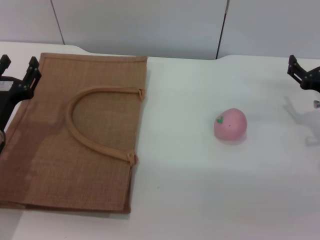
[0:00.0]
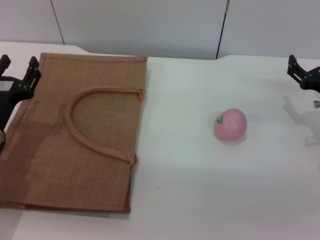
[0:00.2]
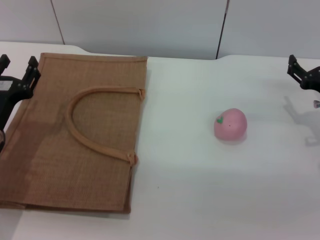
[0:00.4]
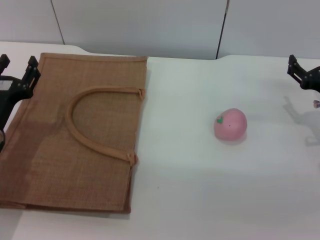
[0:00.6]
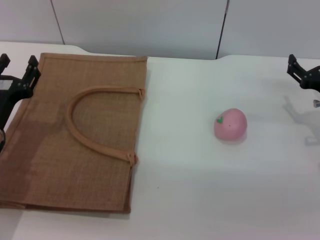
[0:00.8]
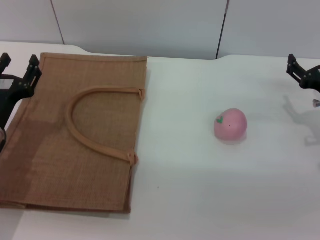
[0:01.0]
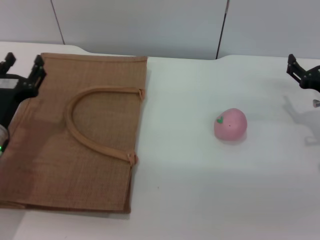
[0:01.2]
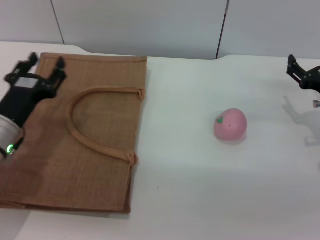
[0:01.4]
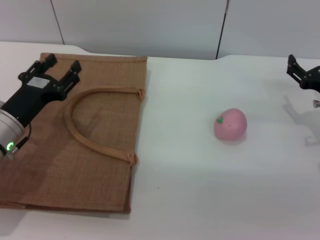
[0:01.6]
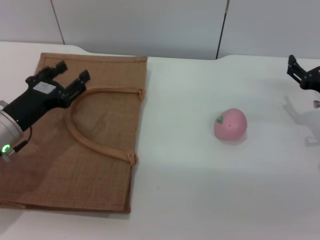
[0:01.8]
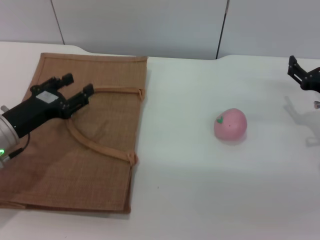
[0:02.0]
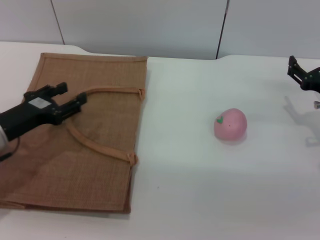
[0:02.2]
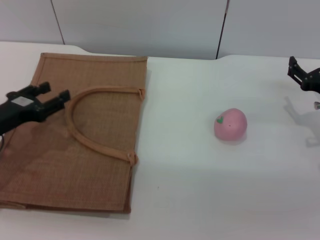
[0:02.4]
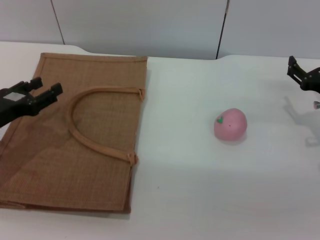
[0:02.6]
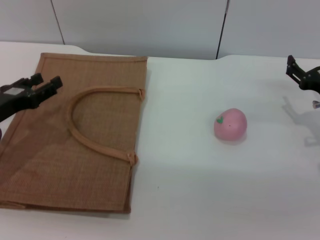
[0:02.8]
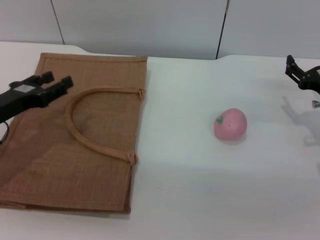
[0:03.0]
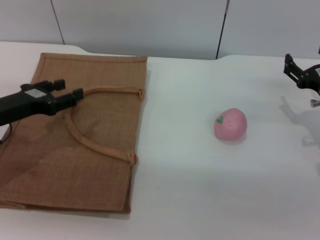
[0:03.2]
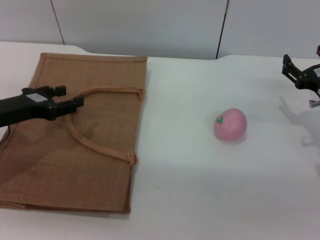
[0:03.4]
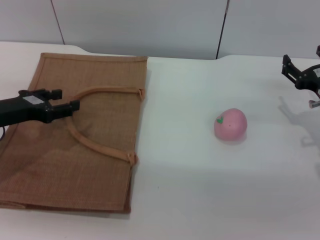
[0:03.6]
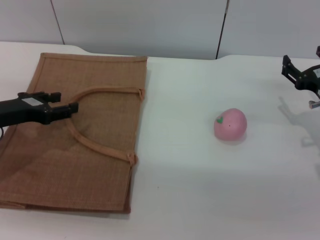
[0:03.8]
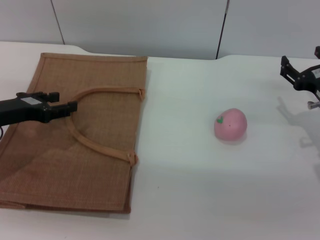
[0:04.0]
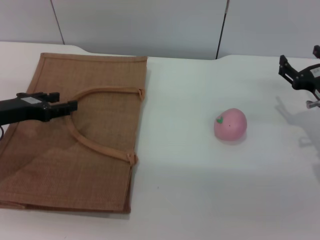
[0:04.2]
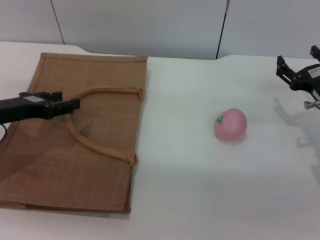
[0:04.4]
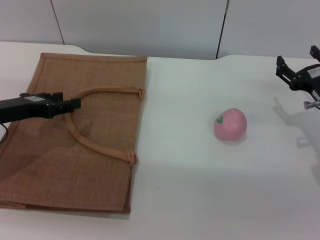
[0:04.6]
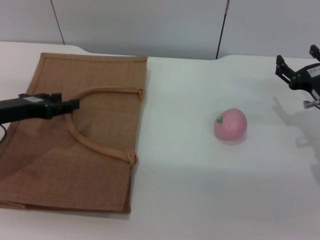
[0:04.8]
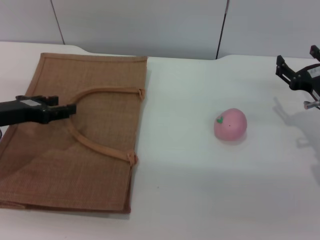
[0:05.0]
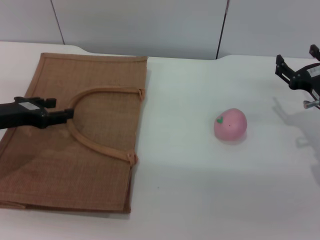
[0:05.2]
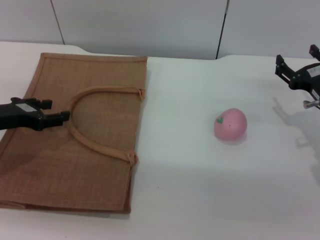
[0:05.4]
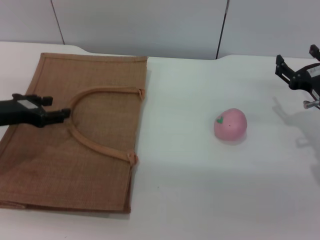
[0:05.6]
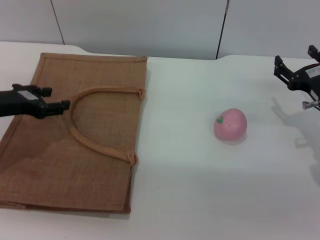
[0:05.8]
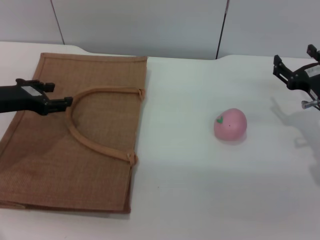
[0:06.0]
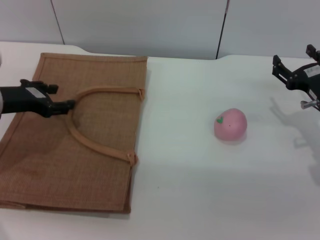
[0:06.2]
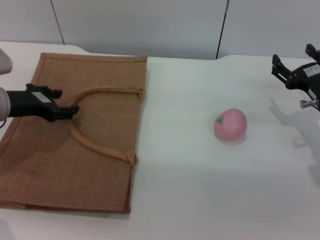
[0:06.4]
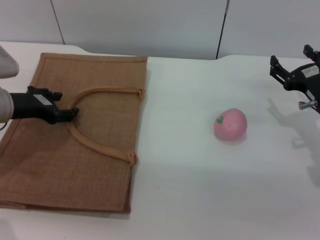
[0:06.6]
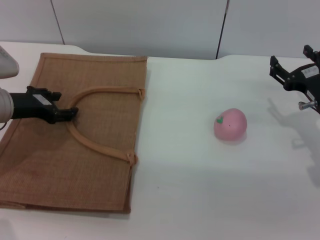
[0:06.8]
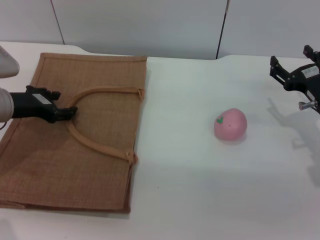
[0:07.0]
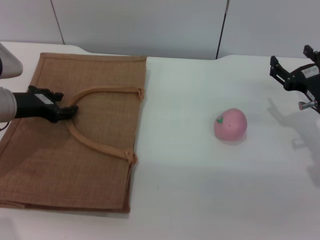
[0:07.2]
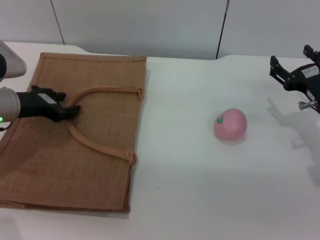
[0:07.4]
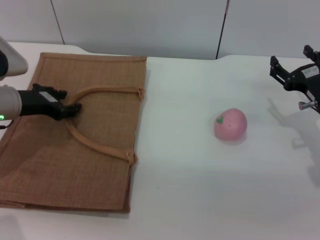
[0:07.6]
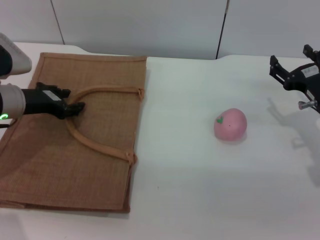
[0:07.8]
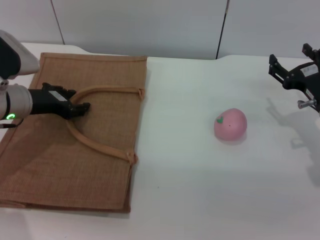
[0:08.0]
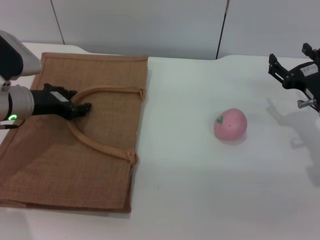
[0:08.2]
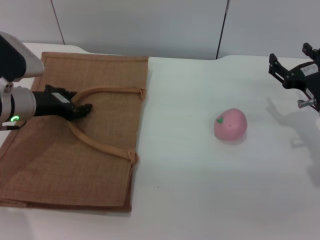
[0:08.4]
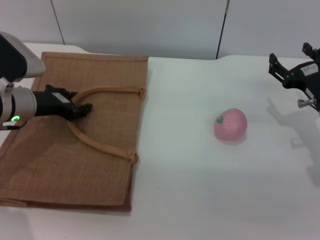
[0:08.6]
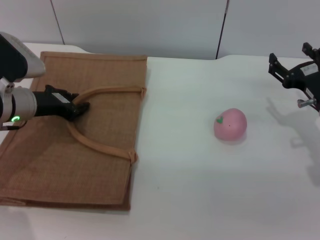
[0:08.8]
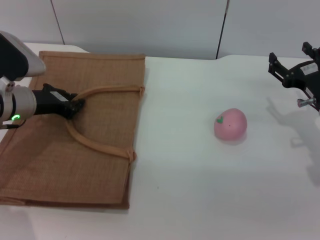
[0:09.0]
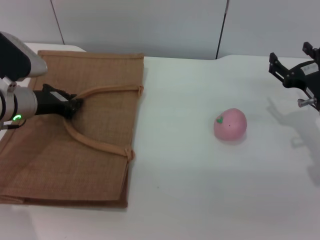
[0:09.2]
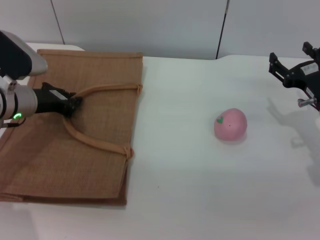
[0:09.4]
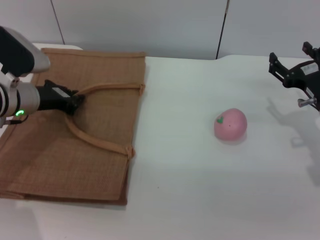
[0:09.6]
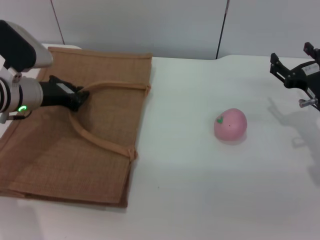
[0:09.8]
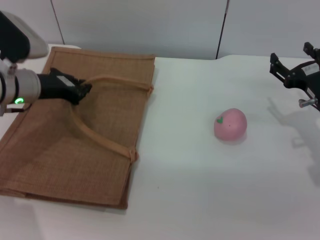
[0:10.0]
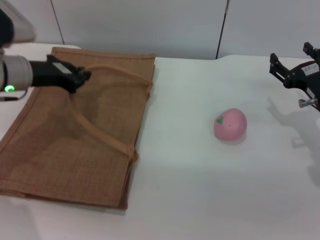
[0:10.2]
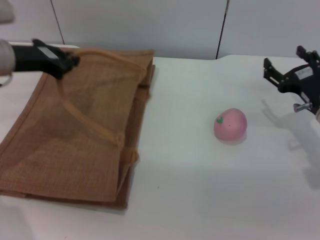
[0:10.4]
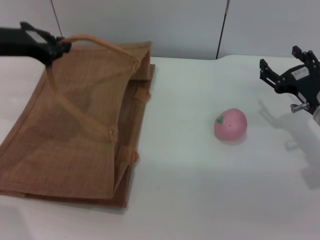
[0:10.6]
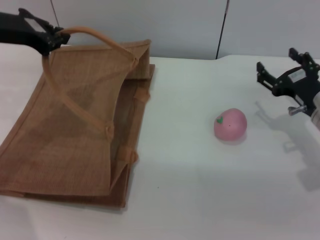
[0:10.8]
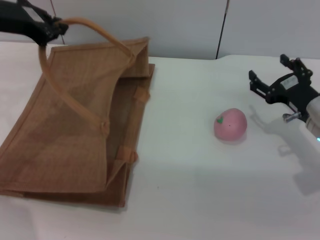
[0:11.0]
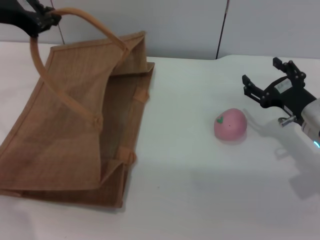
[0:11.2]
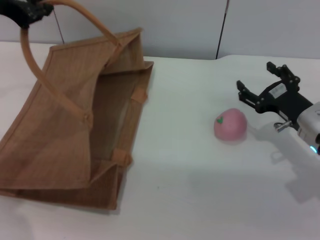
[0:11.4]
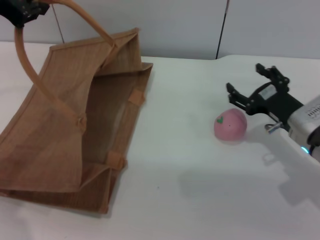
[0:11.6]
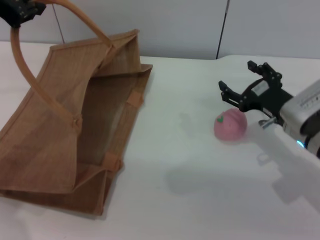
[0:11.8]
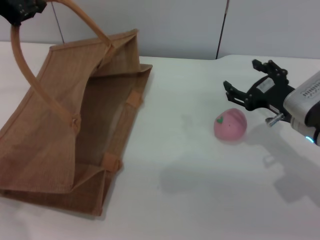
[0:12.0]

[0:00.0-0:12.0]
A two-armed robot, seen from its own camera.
Task of the whole recording: pick up the peach from the table and place it in the brown handbag.
Step, 0:00.0 to 0:10.2: Lift the woven bag with the left gripper to open it.
0:00.0 to 0:01.6: The grippers move only a little.
0:01.6 to 0:03.0: The left gripper shifts by about 5 cm.
0:03.0 to 0:04.4: The grippers stay close to where they were, moving slightly.
0:04.4 to 0:06.0: The grippers move only a little.
0:06.0 to 0:07.6: The grippers stay close to where they were, moving slightly.
0:07.6 to 0:09.0: The grippers make only small movements.
0:09.0 to 0:10.4: The left gripper is displaced upward by about 10 cm.
0:10.4 to 0:12.0: The left gripper is displaced upward by some 15 cm; the right gripper shifts by about 5 cm.

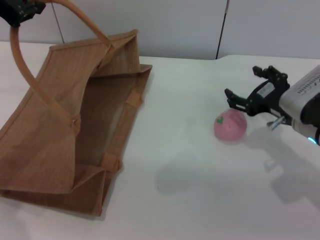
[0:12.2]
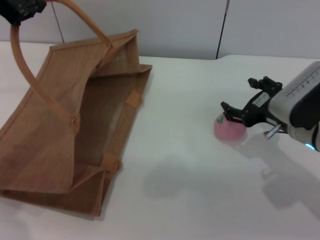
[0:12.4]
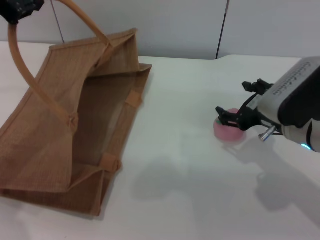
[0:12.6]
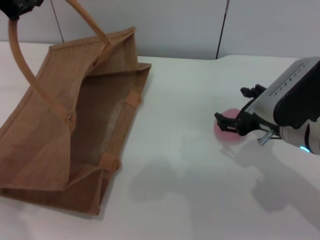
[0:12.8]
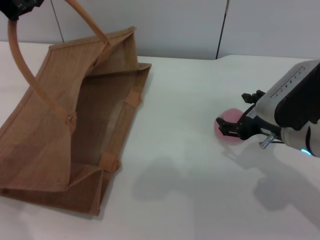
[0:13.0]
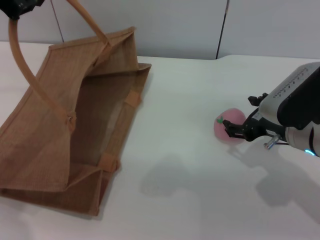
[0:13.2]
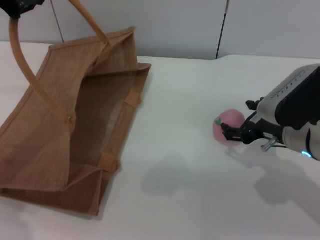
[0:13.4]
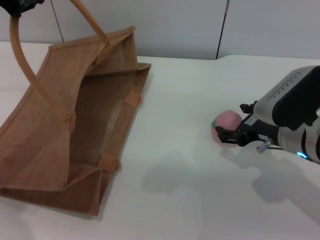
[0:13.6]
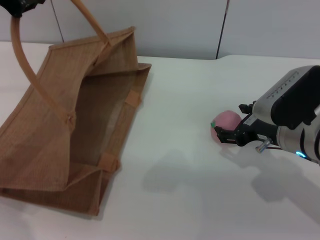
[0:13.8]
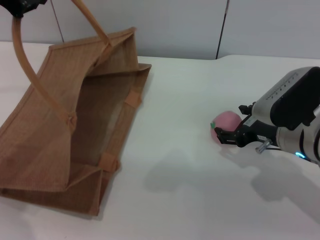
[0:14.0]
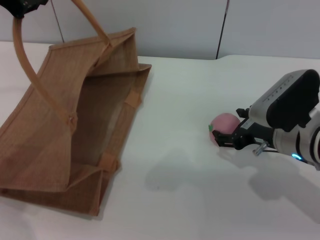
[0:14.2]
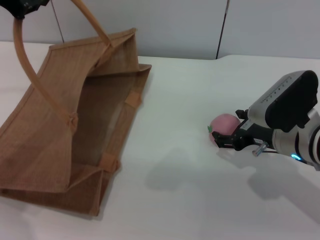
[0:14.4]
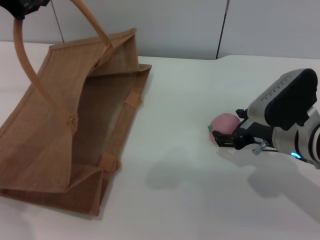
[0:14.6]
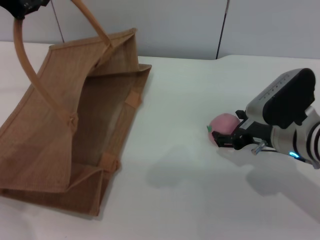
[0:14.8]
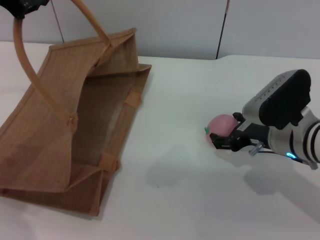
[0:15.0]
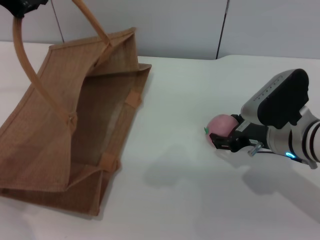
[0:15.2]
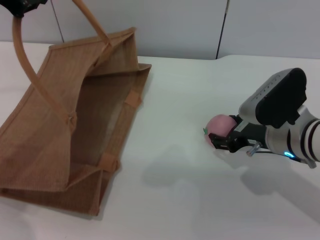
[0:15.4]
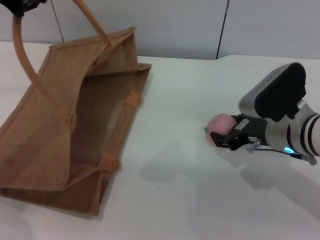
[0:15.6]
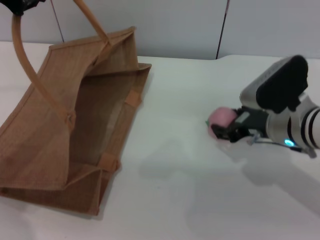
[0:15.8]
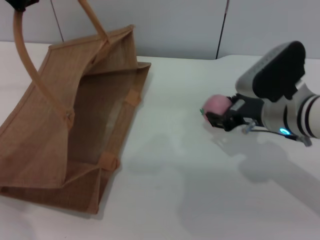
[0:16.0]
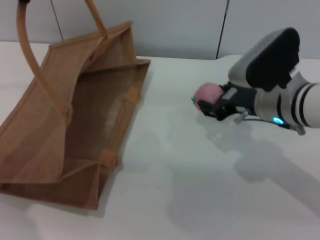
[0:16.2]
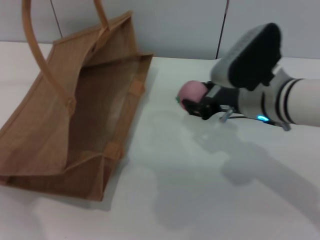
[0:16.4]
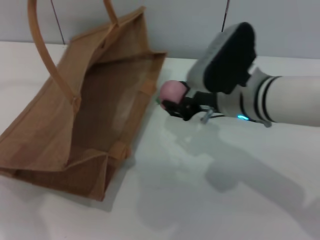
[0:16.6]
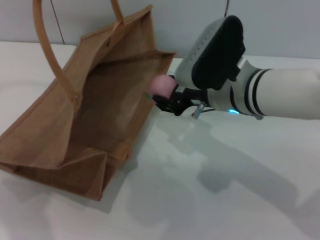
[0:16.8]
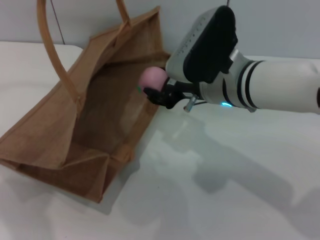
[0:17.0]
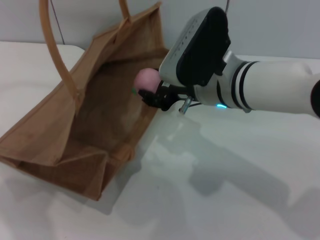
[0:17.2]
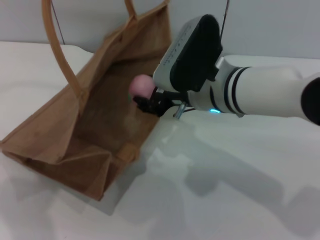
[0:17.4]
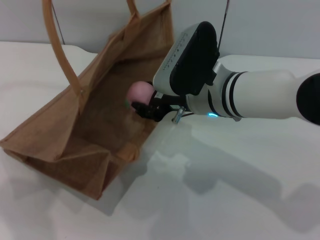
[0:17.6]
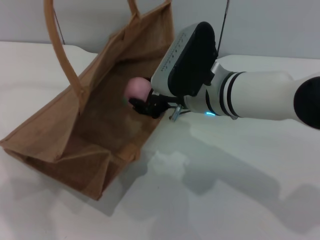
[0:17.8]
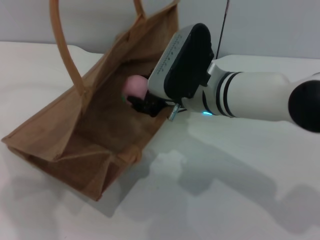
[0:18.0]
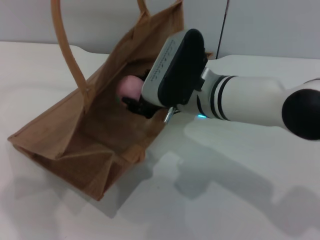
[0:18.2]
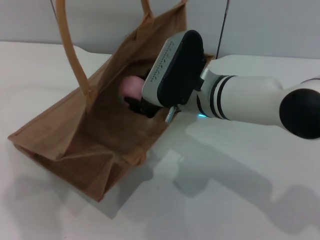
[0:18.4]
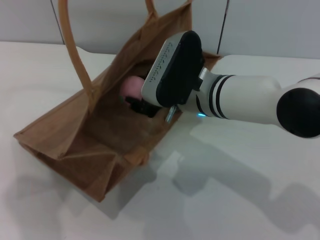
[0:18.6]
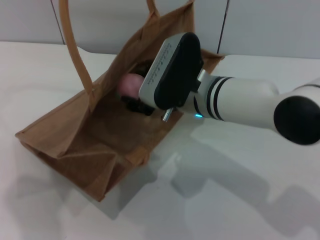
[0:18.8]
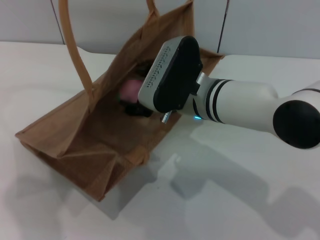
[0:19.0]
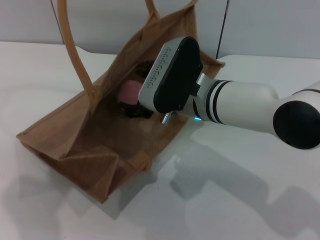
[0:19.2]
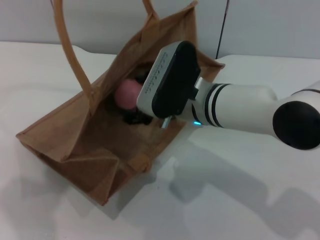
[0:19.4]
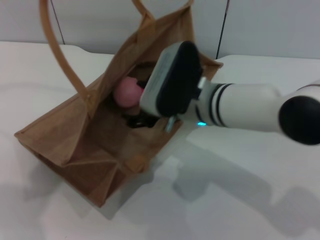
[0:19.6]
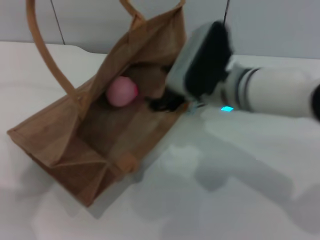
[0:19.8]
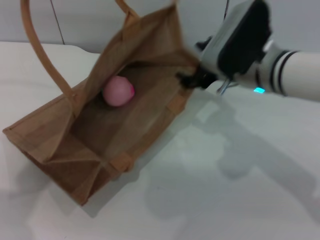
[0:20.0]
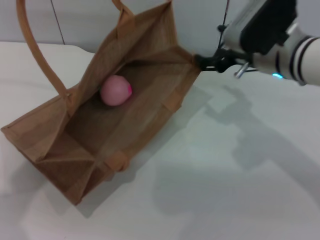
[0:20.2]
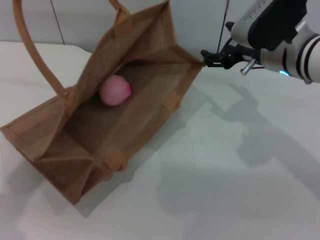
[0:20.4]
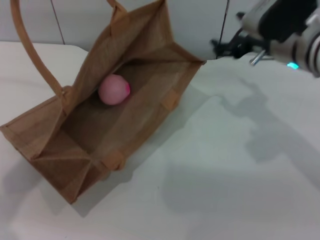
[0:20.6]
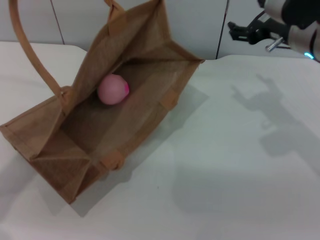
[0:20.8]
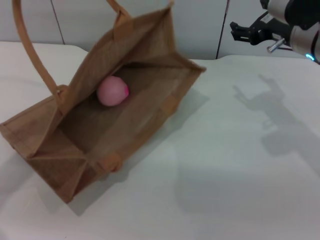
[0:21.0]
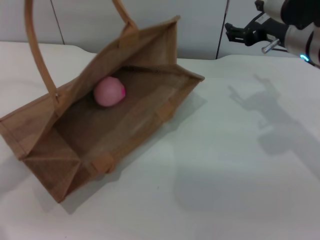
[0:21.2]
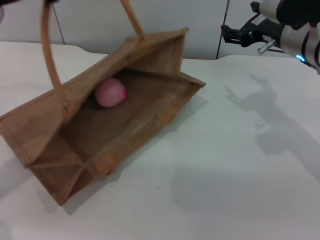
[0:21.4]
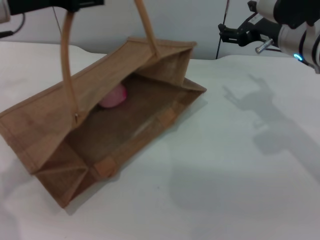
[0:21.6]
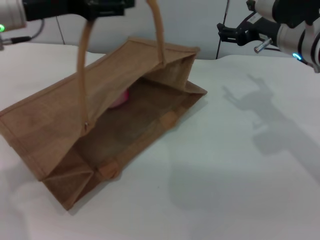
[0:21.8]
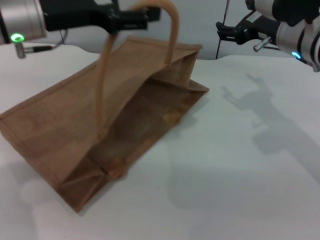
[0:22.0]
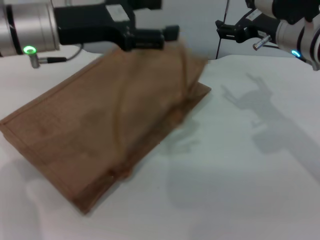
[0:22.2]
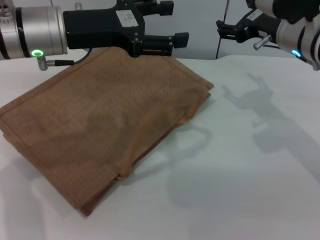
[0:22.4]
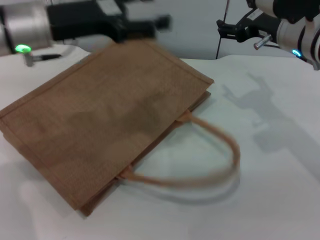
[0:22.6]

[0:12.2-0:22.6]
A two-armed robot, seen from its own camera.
Task of the whole recording: pick up the peach from the table and place it in the brown handbag.
Step, 0:12.2 to 0:16.4: Pick up the peach with the right gripper.
Step, 0:16.6 to 0:20.0: Place the peach into the woven bag with the right gripper.
0:12.2 to 0:13.6: There are only small adjustments of the grippers.
0:13.6 to 0:15.2: The grippers move only a little.
0:15.2 to 0:16.6: The right gripper travels to the left and upward by some 10 cm, and closes up.
0:16.6 to 0:18.2: The right gripper shifts approximately 5 cm to the left.
0:18.2 to 0:19.6: The right gripper opens.
0:19.6 to 0:21.2: The right gripper travels to the right and forward by some 15 cm, while the left gripper shifts roughly 10 cm downward and to the left.
0:21.2 to 0:22.6: The left gripper heads to the right, covering about 10 cm, and opens its fingers.
